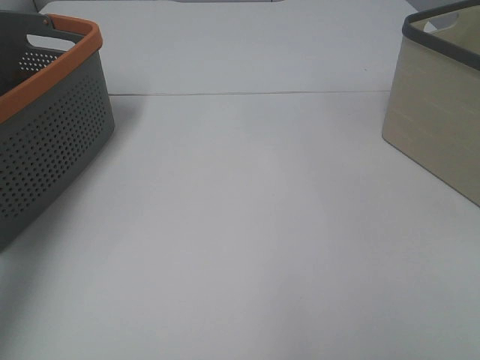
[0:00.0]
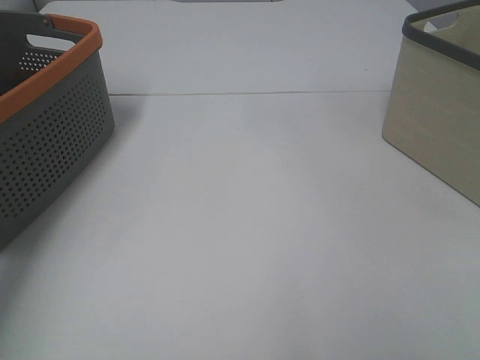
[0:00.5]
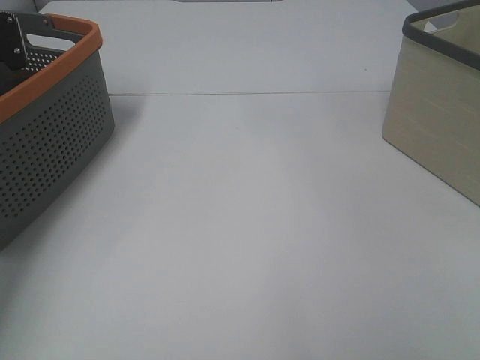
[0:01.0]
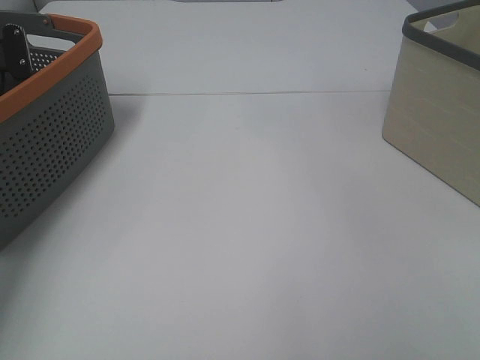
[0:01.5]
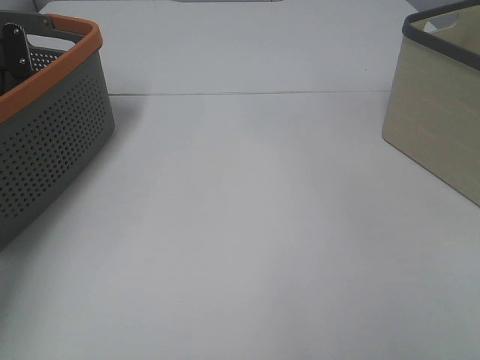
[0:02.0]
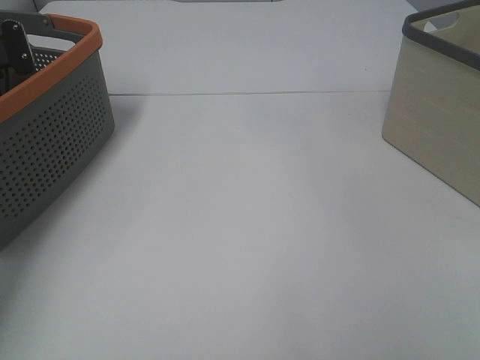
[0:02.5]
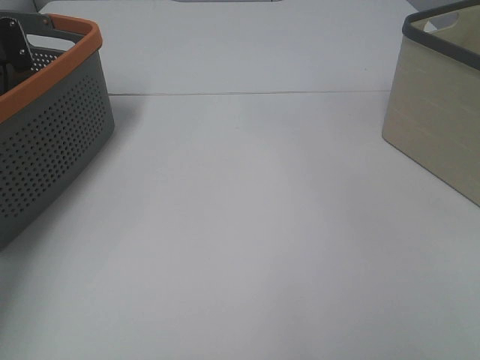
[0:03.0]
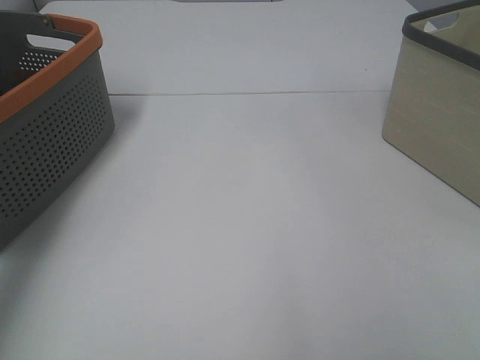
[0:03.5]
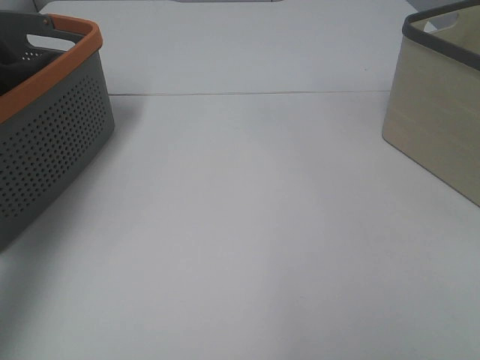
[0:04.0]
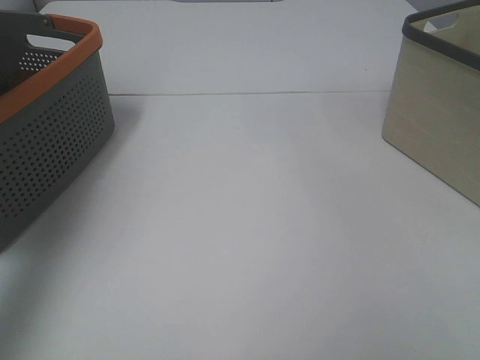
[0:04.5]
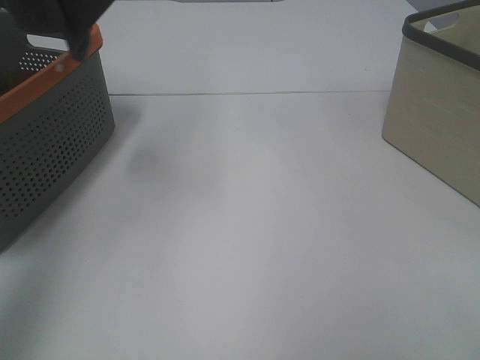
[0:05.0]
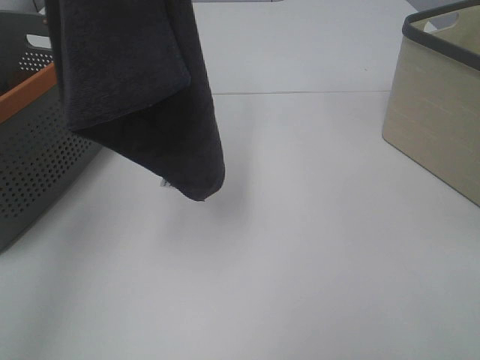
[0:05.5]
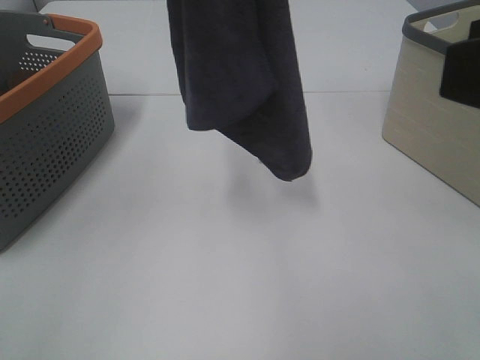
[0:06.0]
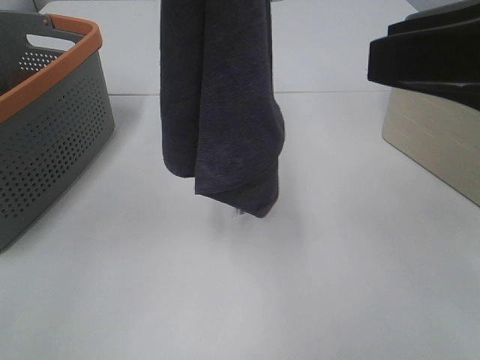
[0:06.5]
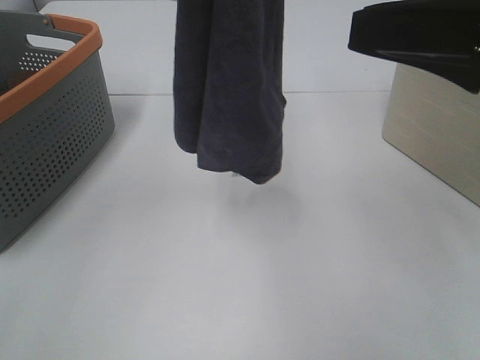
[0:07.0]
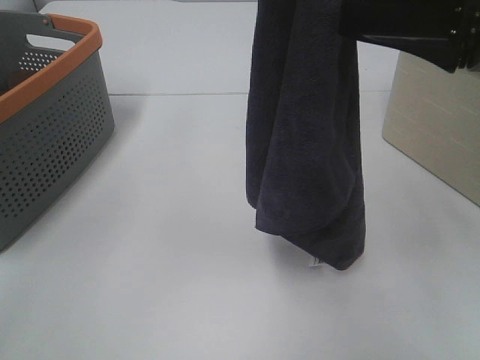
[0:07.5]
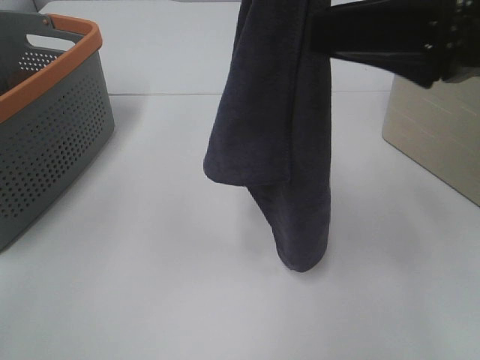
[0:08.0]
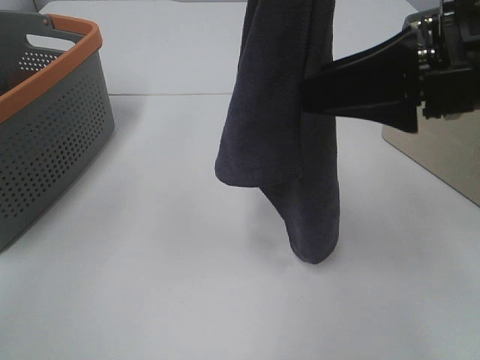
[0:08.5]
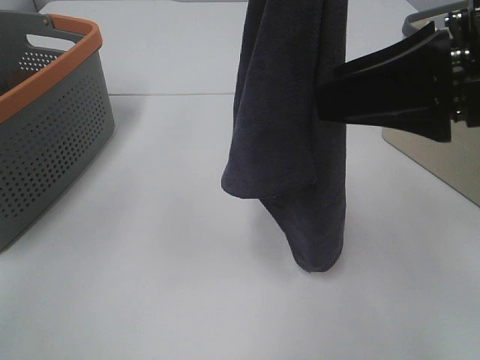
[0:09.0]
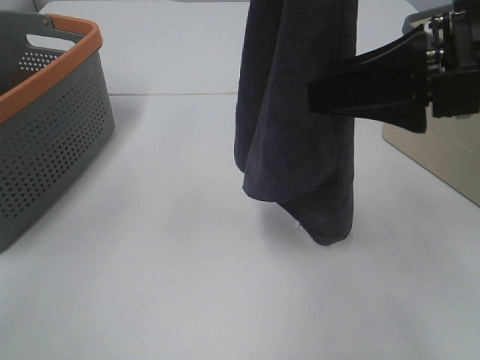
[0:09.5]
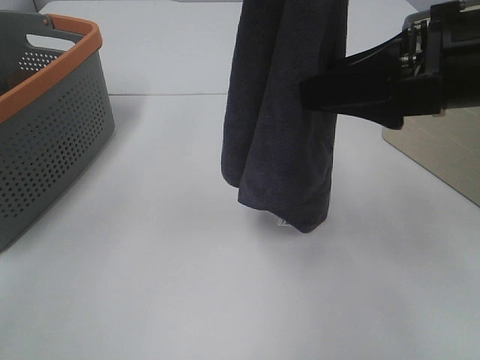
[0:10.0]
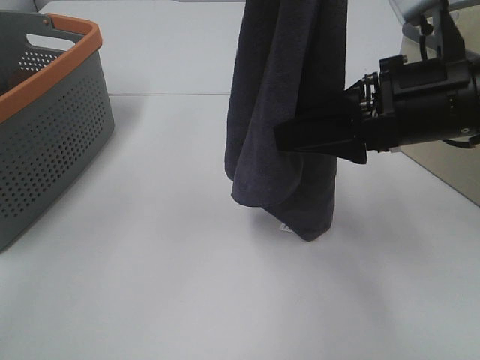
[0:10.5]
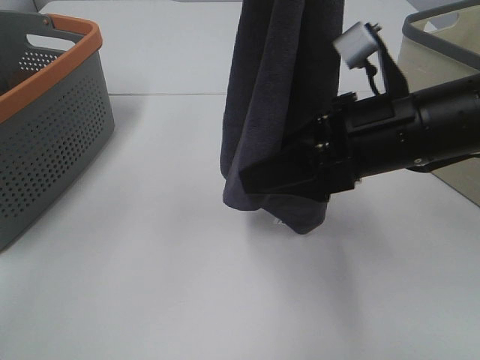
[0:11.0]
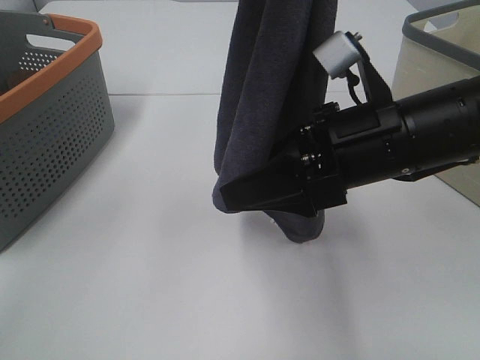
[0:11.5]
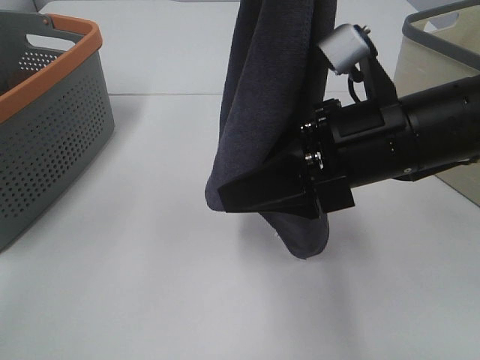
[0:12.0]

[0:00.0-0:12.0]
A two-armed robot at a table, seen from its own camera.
Task of the whole recording: Remove the towel and place it.
Step, 0:04.5 to 0:11.5: Right hand: grab a corner of the grey towel and straighten it.
0:02.0 to 0:04.0: The left gripper is displaced upward and backward by roughly 30 cm.
0:04.0 to 0:06.0: The left gripper shifts approximately 20 cm to the right, while the right gripper shifts about 15 cm forward, upward and to the left.
0:06.0 to 0:08.0: The left gripper heads to the right, covering approximately 5 cm. Meanwhile the right gripper heads forward, covering some 10 cm.
0:08.0 to 0:10.0: The grippers make only small movements.
0:10.0 to 0:12.0: The right gripper moves downward and to the left, about 10 cm.

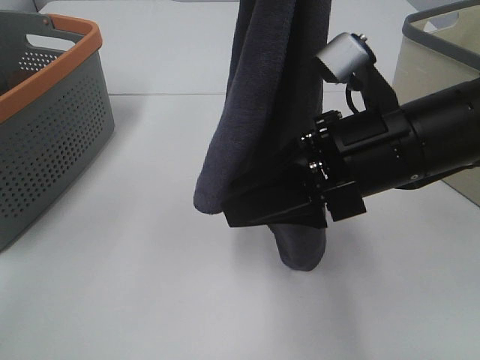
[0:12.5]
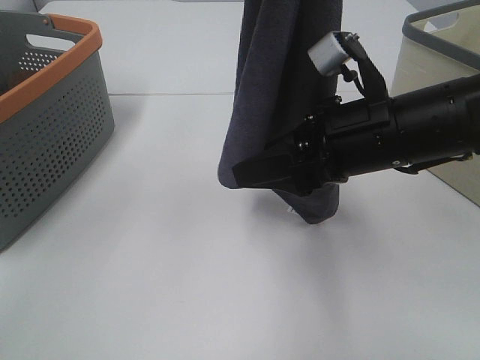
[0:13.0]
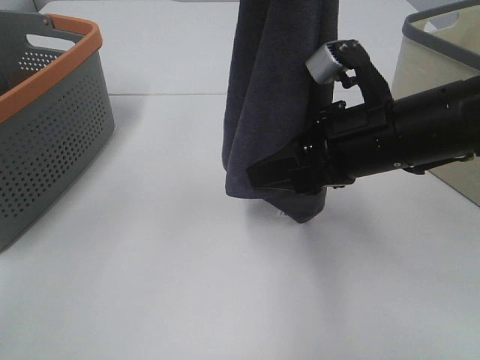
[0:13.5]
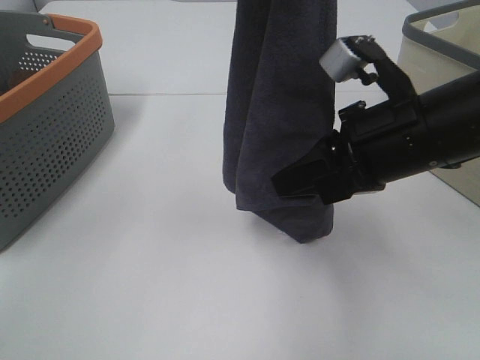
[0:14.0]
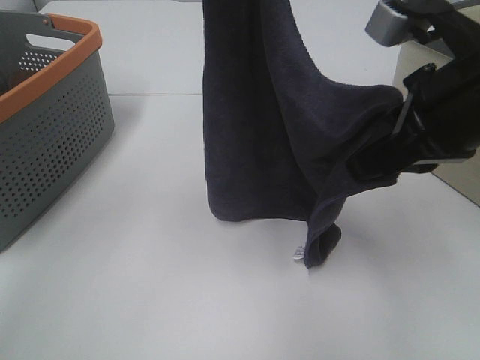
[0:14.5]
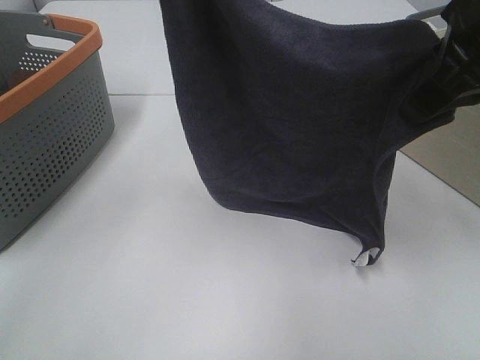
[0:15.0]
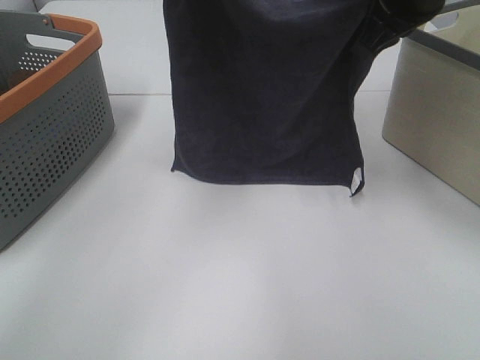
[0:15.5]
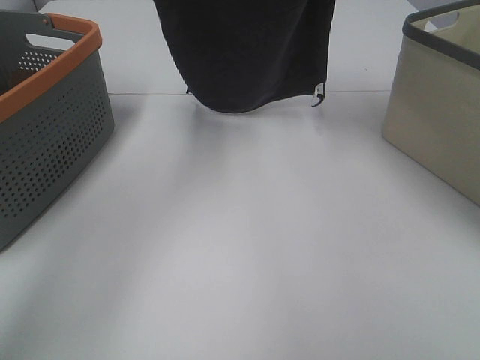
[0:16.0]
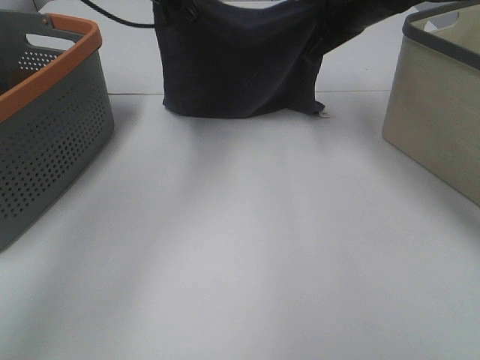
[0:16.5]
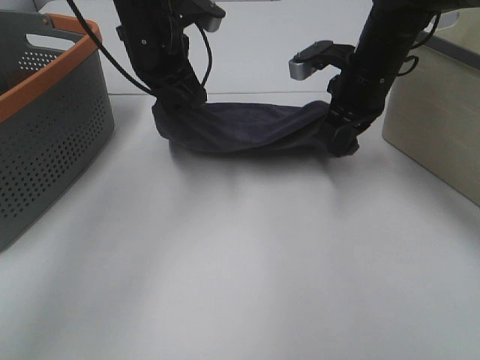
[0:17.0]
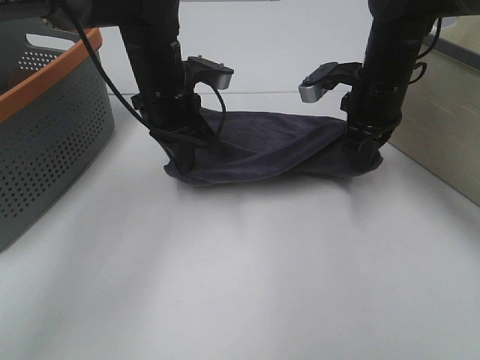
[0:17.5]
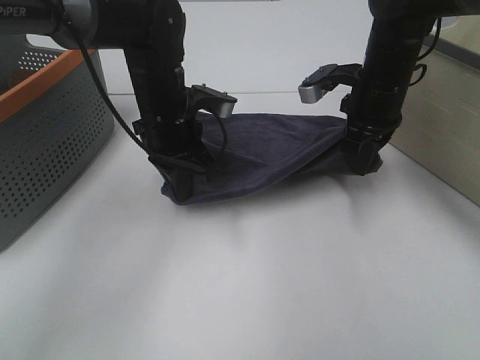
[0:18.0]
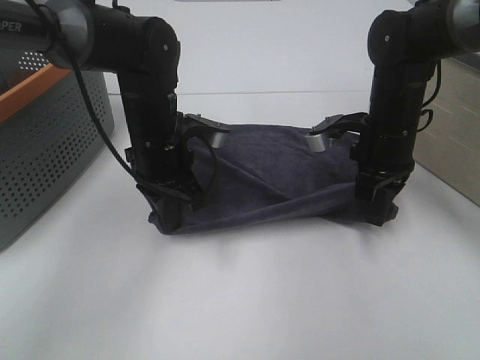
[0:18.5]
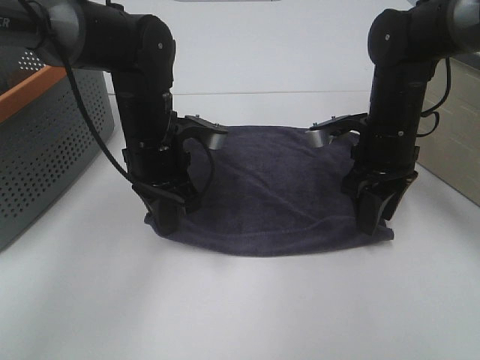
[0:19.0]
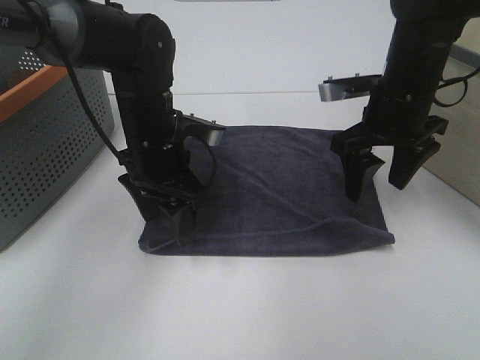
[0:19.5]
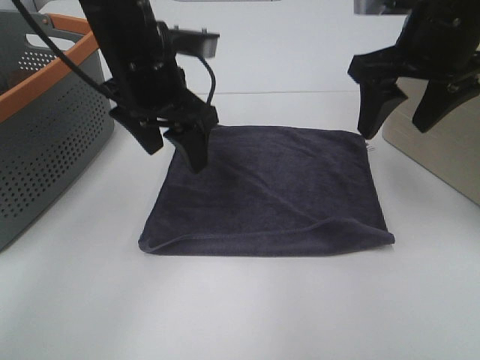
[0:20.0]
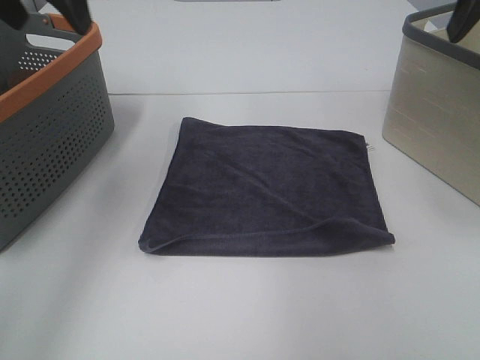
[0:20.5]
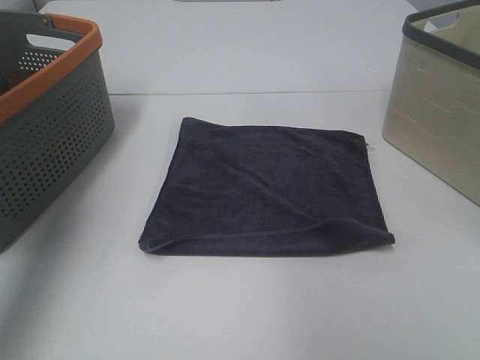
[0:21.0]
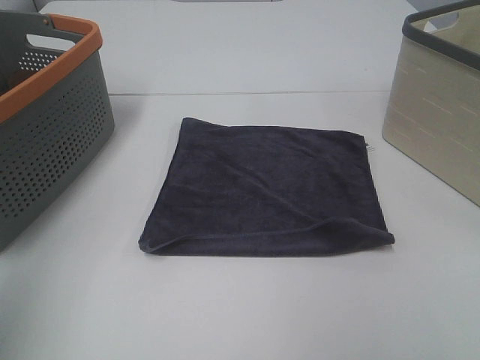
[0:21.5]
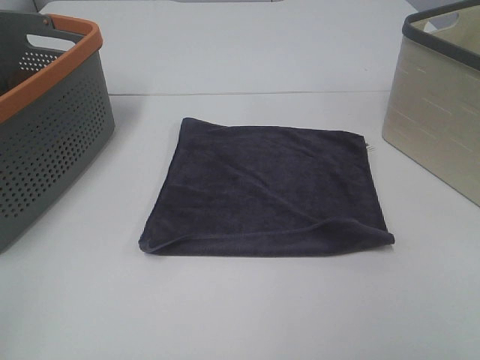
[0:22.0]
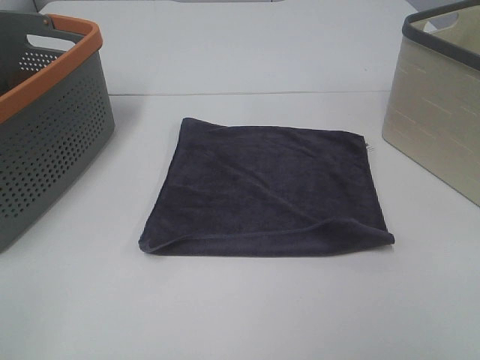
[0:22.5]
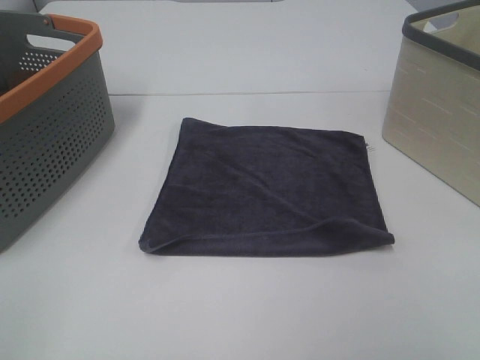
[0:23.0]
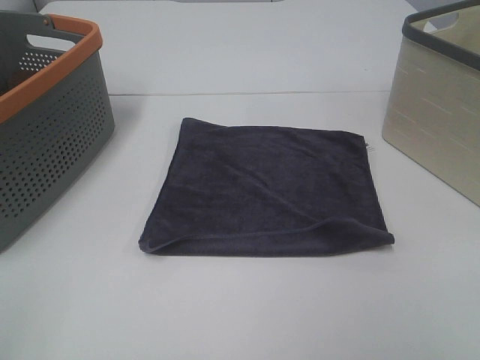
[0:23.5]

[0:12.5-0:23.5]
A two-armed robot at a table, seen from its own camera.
Task of the whole recording: Remove the towel and place it.
Step, 0:12.5 to 0:14.5: Left hand: spread the grey towel flat on the table.
Step, 0:12.5 to 0:14.5: Right hand: spread the grey towel flat on the table.
0:12.5 to 0:14.5: The left gripper travels downward by about 5 cm; the right gripper goes about 10 cm upward and to the right, and closes up.
0:14.5 to 0:16.0: The right gripper travels forward by some 25 cm. Meanwhile the left gripper travels forward and downward by approximately 15 cm.
0:16.0 to 0:18.0: The left gripper travels downward and backward by roughly 20 cm; the right gripper shifts roughly 15 cm downward.
0:18.0 to 0:20.0: The left gripper travels upward by about 10 cm, and opens its fingers, while the right gripper heads upward and backward, covering some 15 cm, and opens up.
0:20.0 to 0:21.5: The right gripper moves backward, approximately 25 cm. The left gripper goes about 35 cm backward, to the left and upward.
0:21.5 to 0:23.5: The left gripper goes about 15 cm backward and downward.

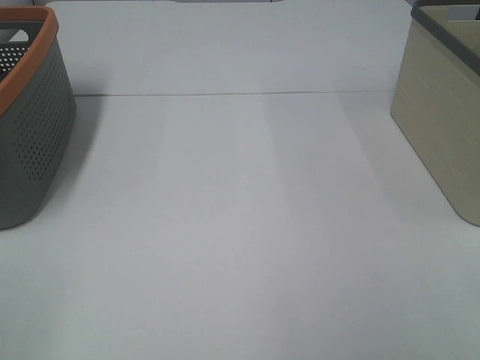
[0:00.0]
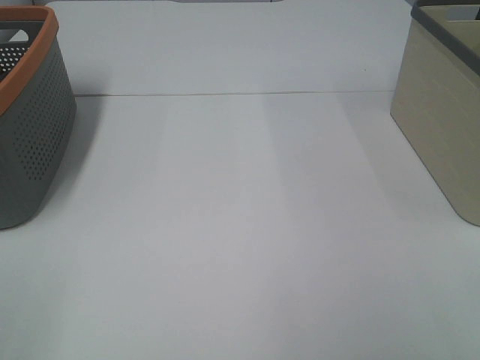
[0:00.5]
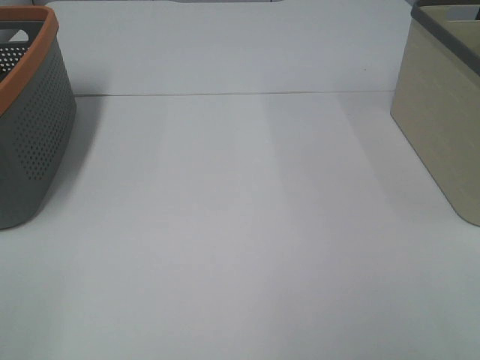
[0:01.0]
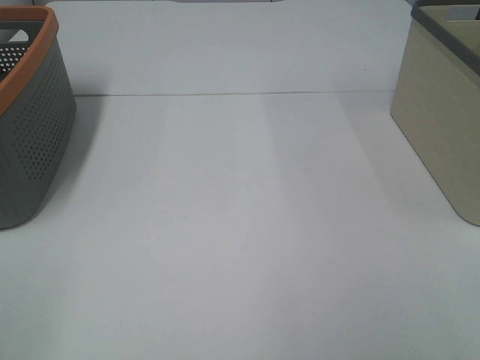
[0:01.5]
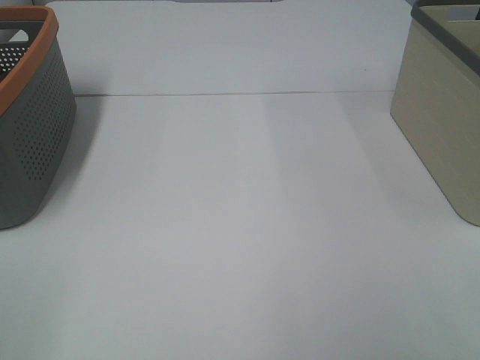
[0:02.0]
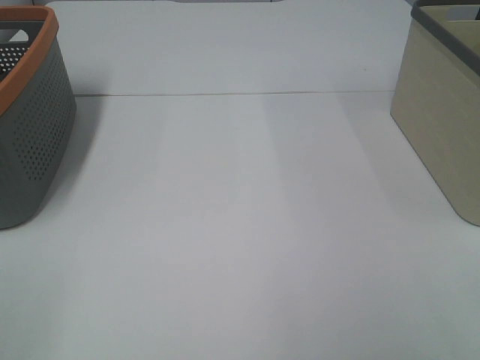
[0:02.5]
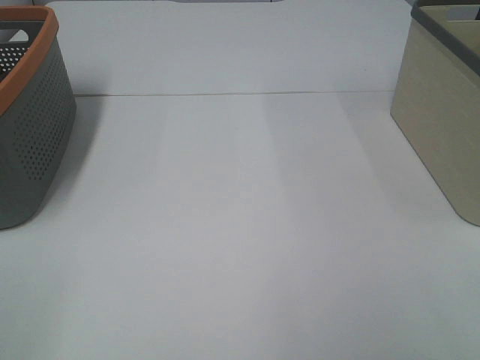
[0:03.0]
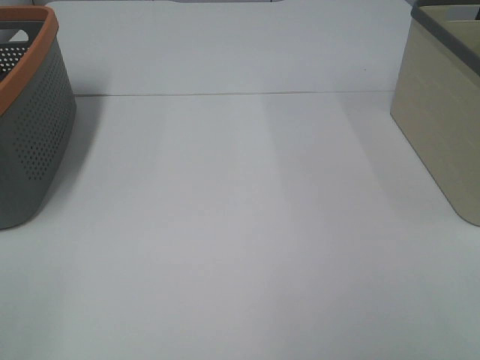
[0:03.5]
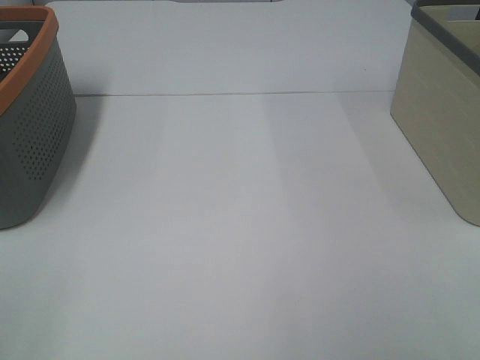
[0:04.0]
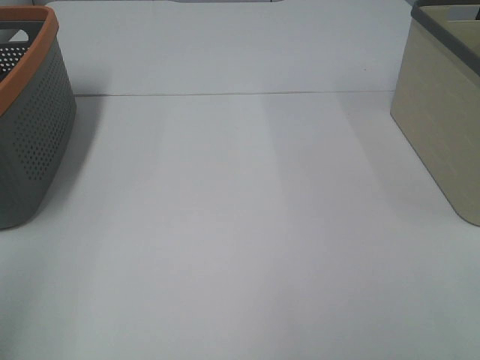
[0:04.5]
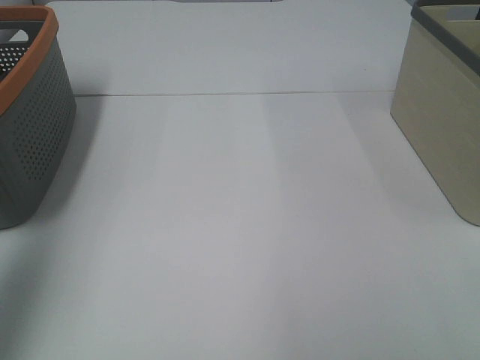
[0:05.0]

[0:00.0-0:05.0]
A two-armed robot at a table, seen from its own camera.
Task of the whole recording: Remove the towel and place it.
0:00.0 to 0:02.5: Both grippers stay put.
0:02.5 to 0:05.0: The left gripper shifts approximately 25 cm forward and upward.
